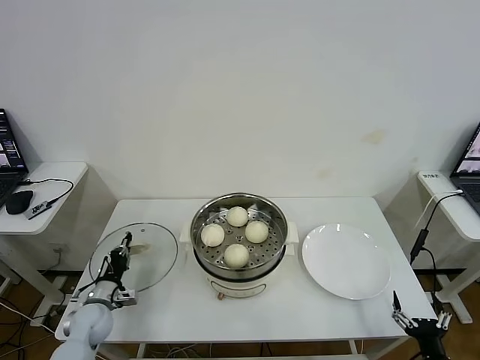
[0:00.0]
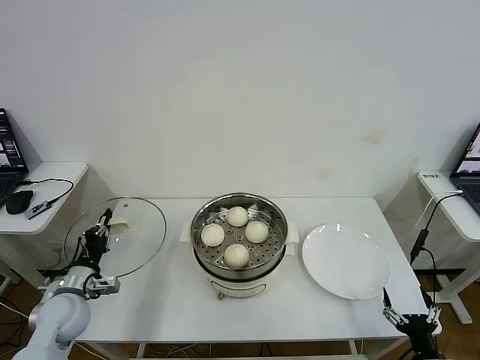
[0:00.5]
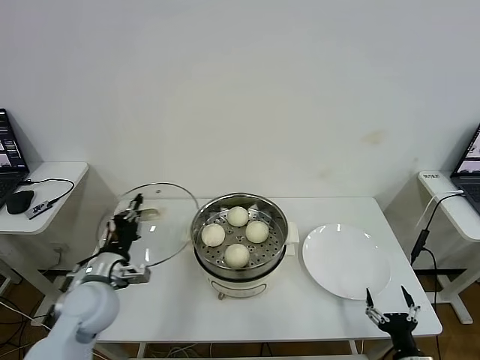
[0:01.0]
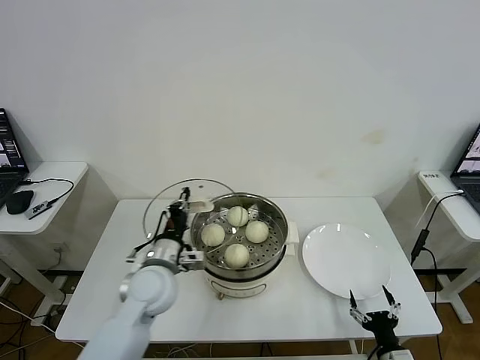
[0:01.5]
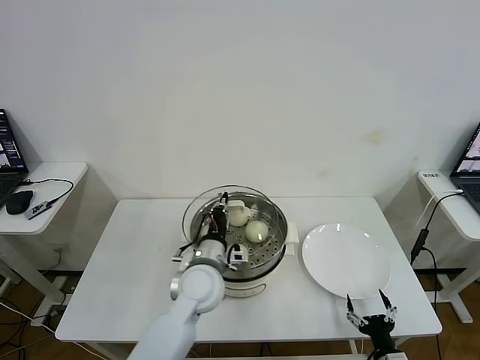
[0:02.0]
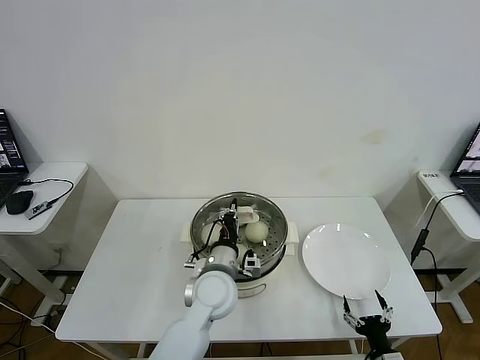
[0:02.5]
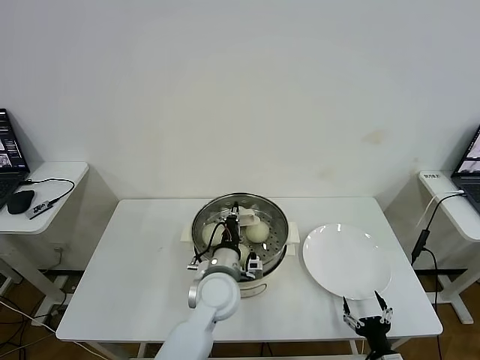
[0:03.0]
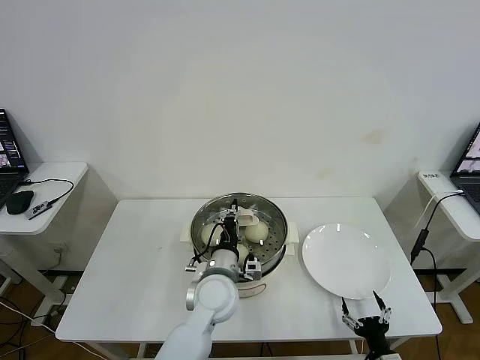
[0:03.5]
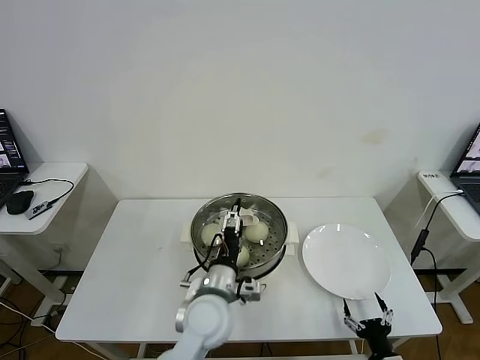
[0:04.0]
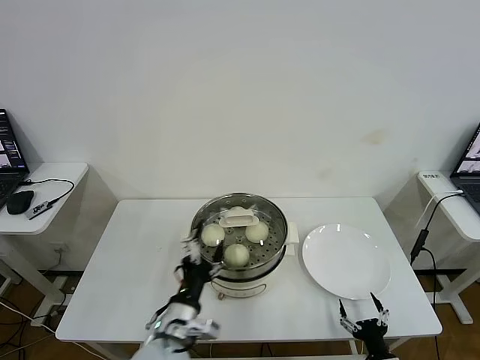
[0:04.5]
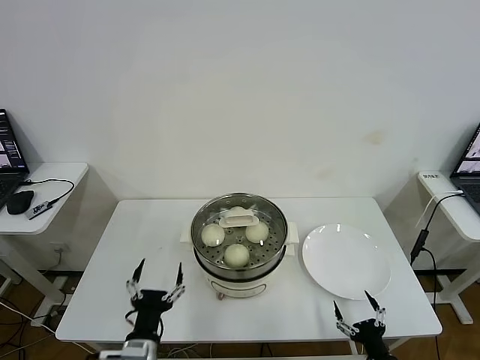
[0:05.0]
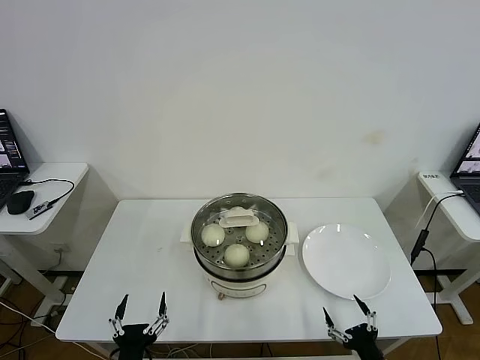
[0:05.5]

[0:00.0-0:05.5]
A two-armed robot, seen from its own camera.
Task of the whole recording: take steamed baozi put them in steamer then cover it.
Step, 0:00.0 to 0:04.0: Place the pot lid on the steamer with left gripper.
0:00.0 to 0:02.0: The left gripper shifts approximately 35 cm to the right and upward, while the right gripper shifts roughly 5 cm to the left.
0:02.0 to 0:03.5: The grippers stay close to where they were, moving slightly.
0:03.5 to 0:05.5: The left gripper goes some 30 cm backward and to the left, and opens its fingers. The right gripper ends up roughly 5 cm from where it was.
